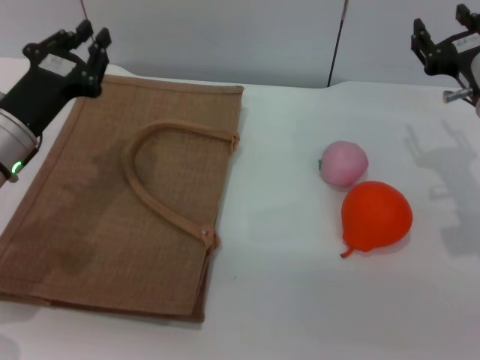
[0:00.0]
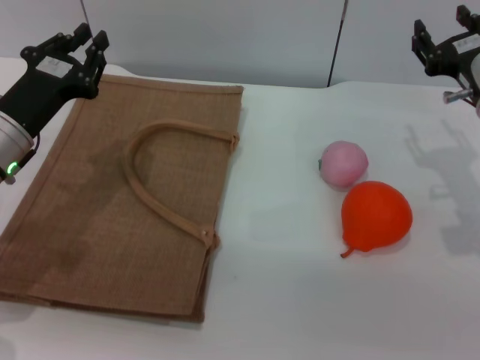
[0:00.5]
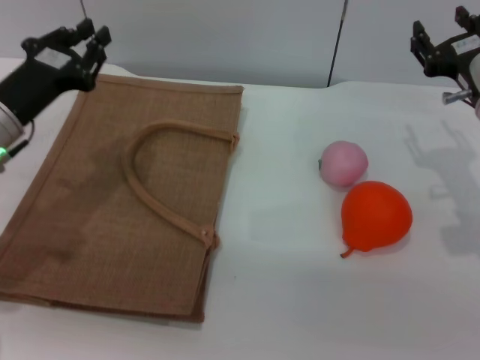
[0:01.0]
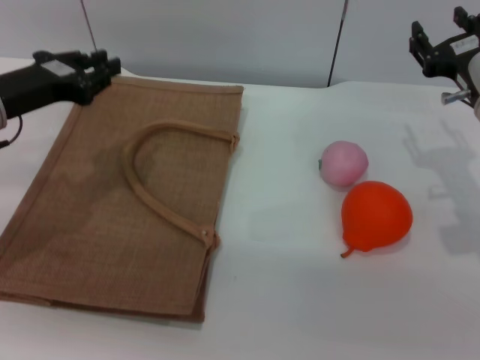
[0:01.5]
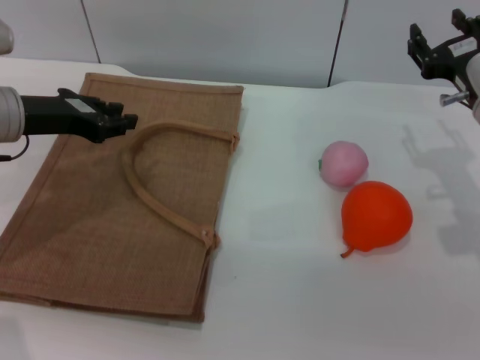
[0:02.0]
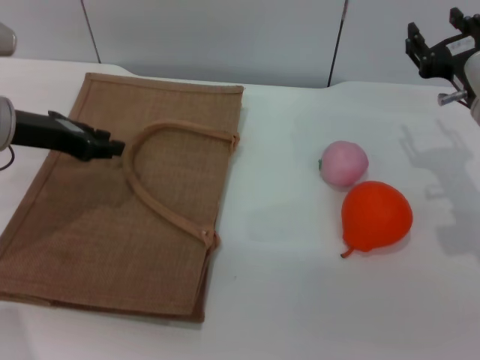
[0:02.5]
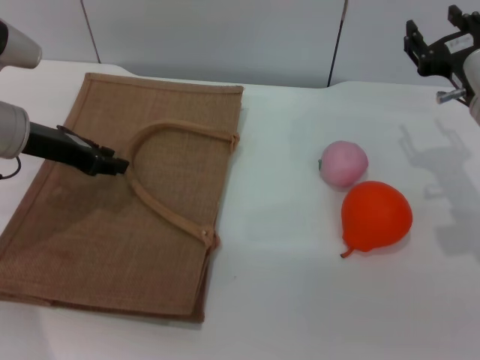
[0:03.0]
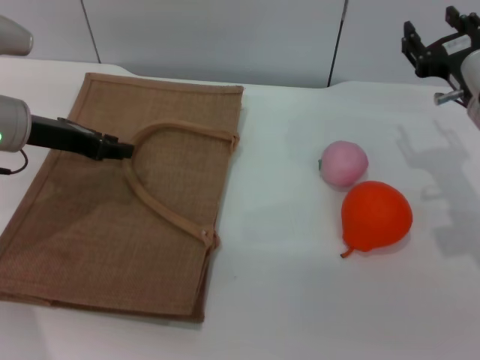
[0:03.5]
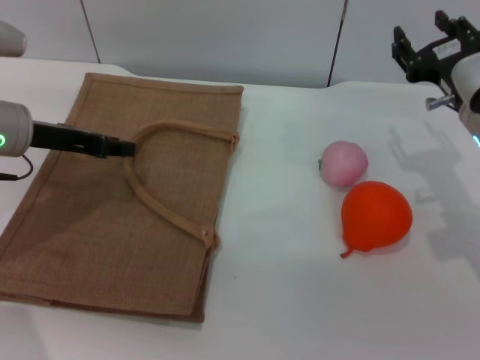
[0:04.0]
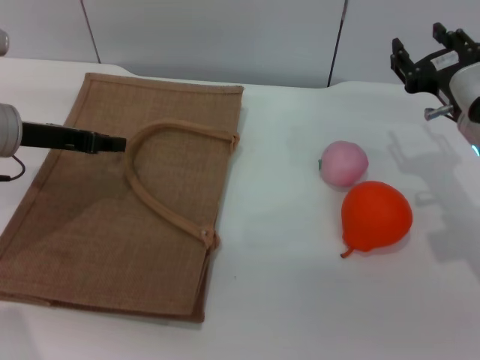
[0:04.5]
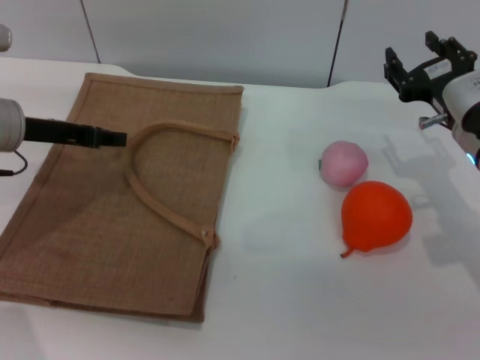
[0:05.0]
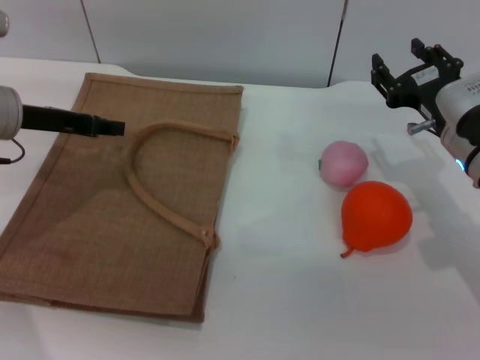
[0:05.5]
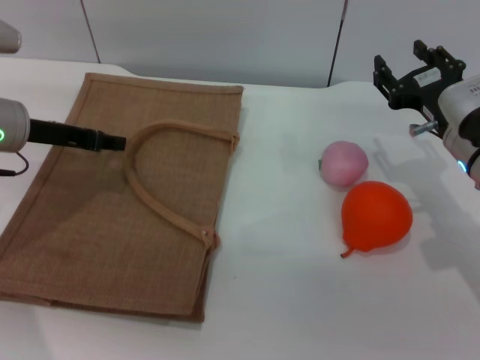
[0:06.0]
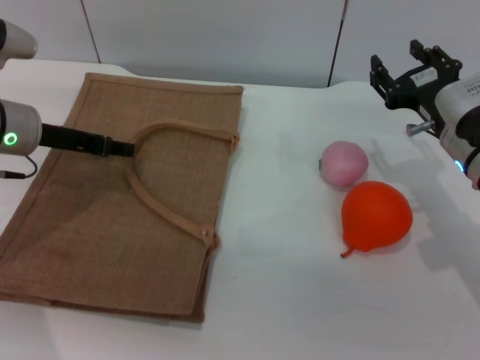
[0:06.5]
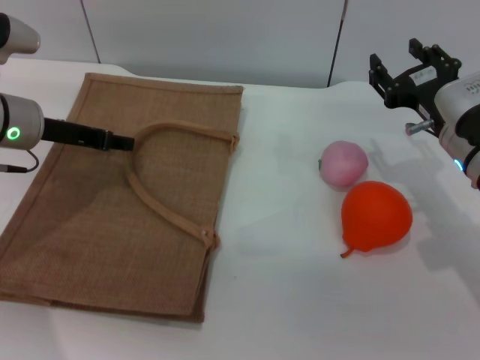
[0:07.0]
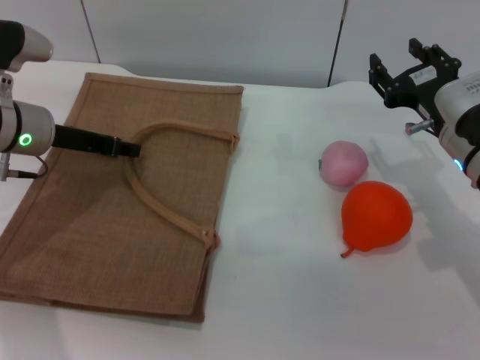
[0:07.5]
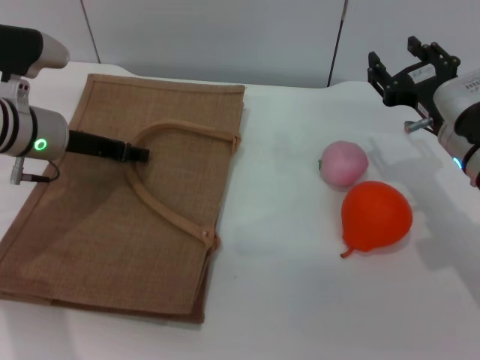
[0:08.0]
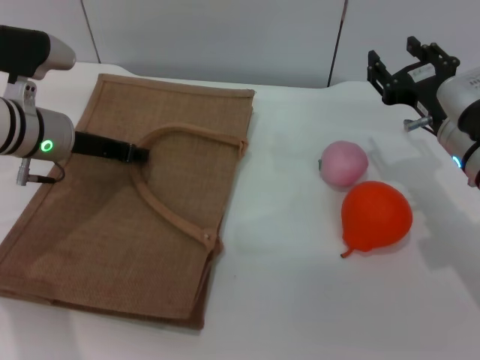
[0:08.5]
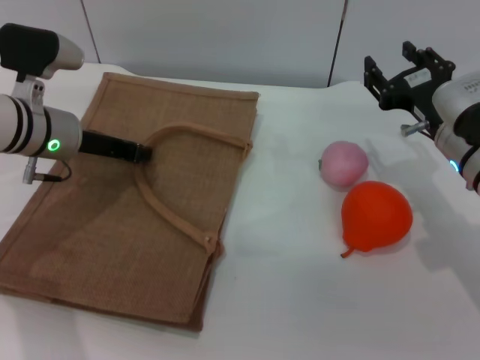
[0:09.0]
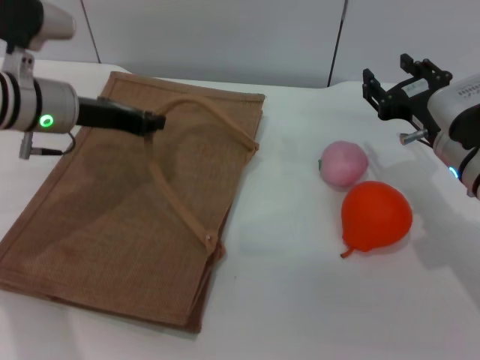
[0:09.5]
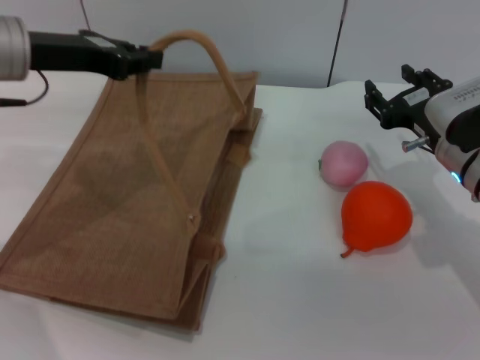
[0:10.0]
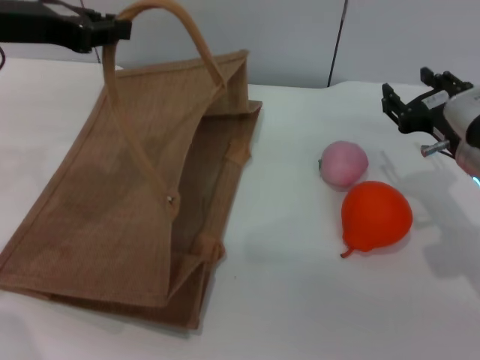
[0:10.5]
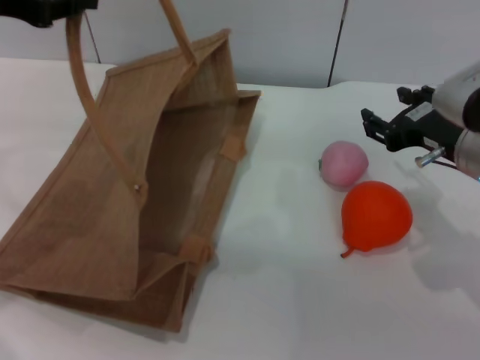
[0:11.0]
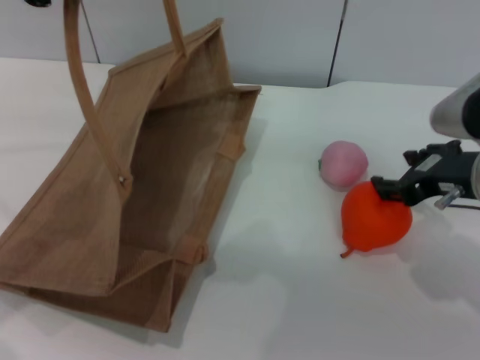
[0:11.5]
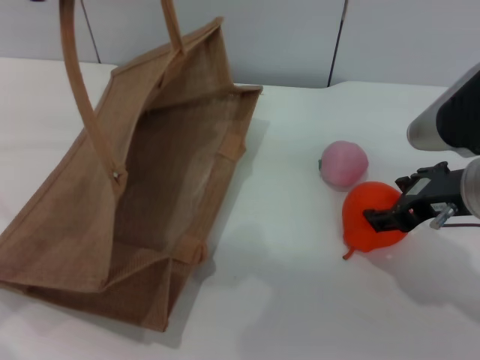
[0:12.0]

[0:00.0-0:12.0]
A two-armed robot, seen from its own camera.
Task of the whole recording: pick up the orange and peach from the table and place it in the brown handbag.
Step, 0:00.0 to 0:10.0: Lift the woven bag with the left gripper to open it.
0:00.0 to 0:02.0: The left gripper shifts some 5 cm upward.
0:04.0 to 0:08.0: There are only small adjustments of the grippers.
0:08.0 to 0:10.0: The left gripper shifts roughly 10 cm upward, and closes its fingers.
0:10.0 to 0:12.0: The two grippers go some 10 cm upward and backward.

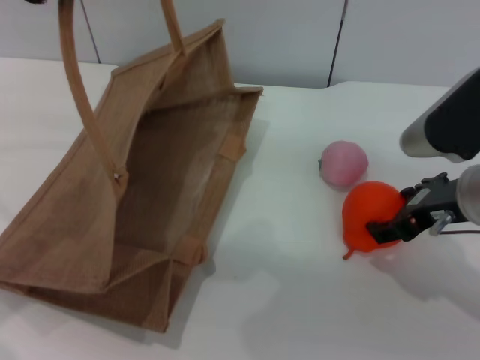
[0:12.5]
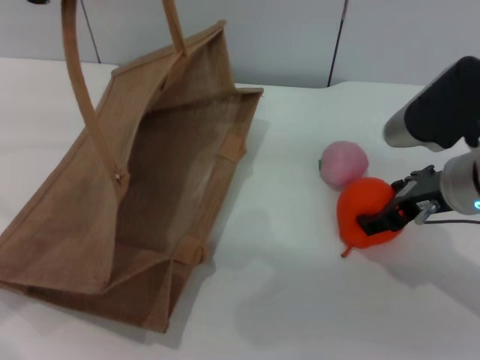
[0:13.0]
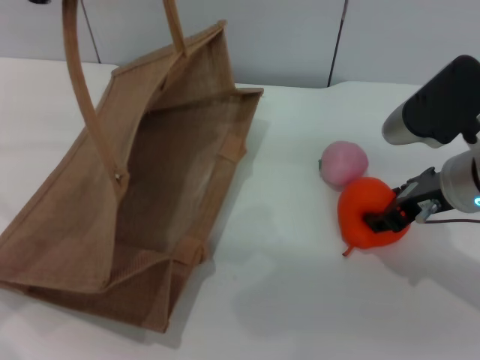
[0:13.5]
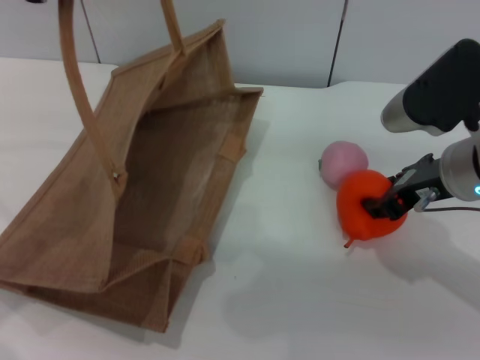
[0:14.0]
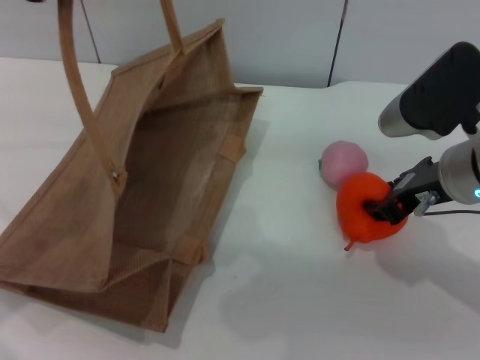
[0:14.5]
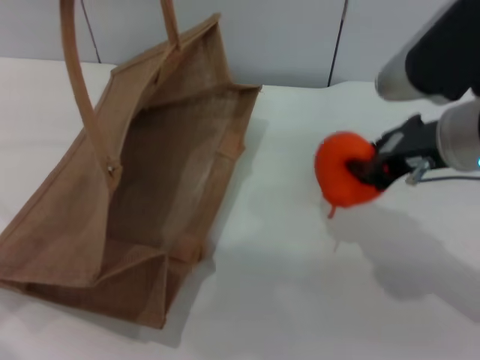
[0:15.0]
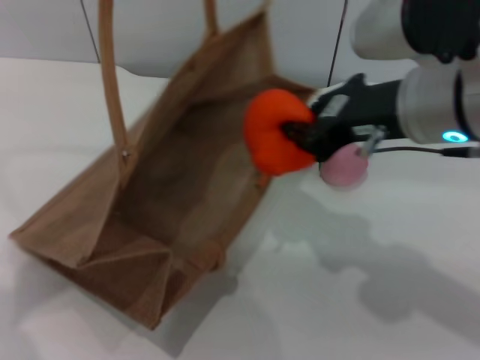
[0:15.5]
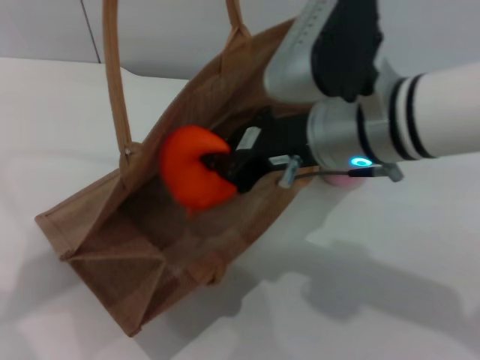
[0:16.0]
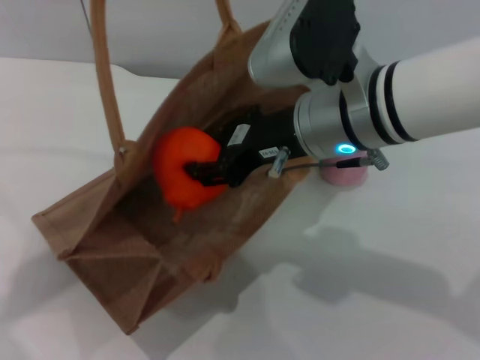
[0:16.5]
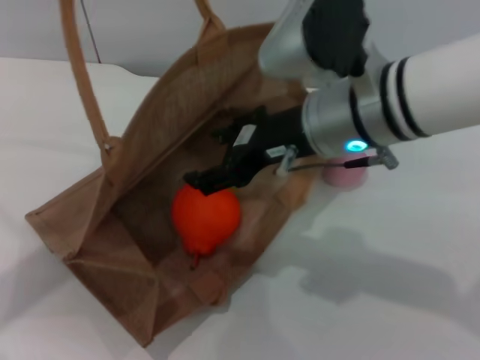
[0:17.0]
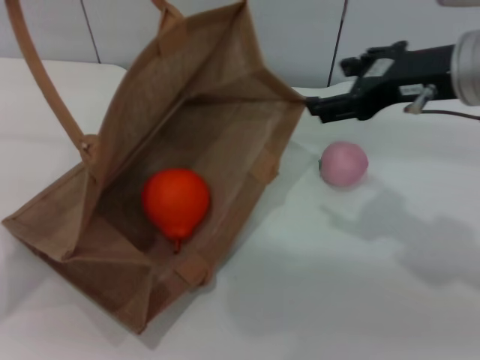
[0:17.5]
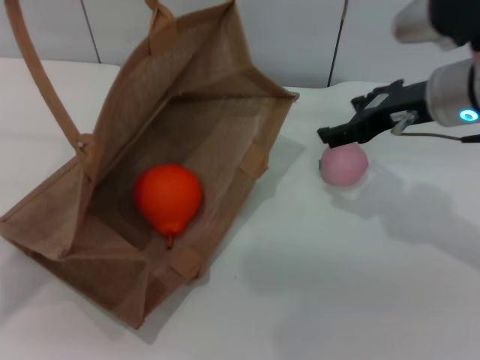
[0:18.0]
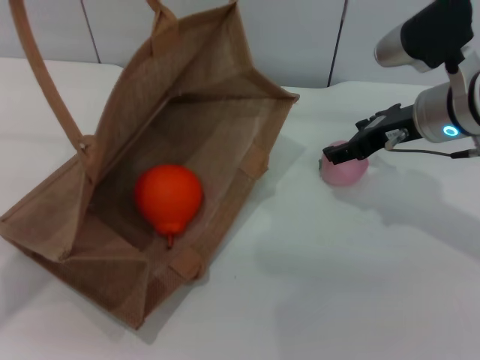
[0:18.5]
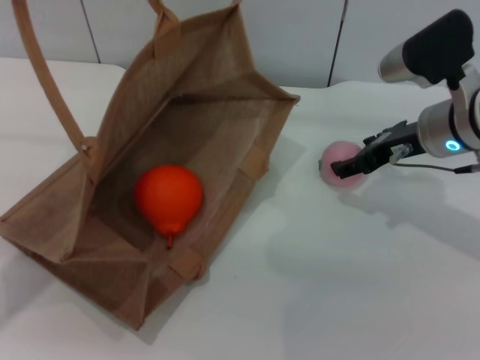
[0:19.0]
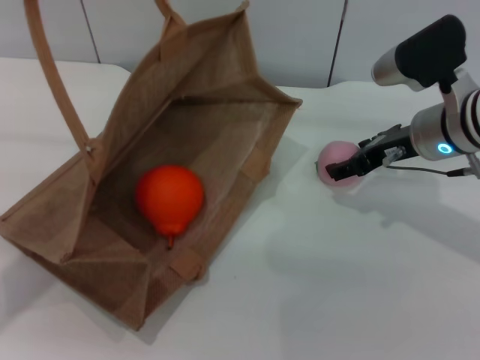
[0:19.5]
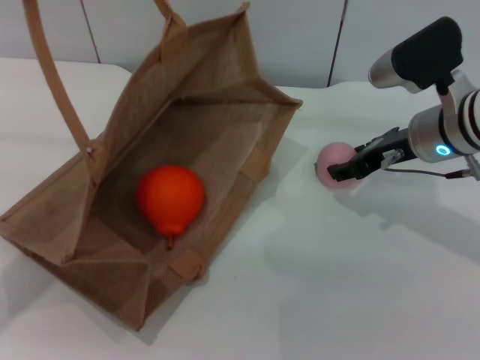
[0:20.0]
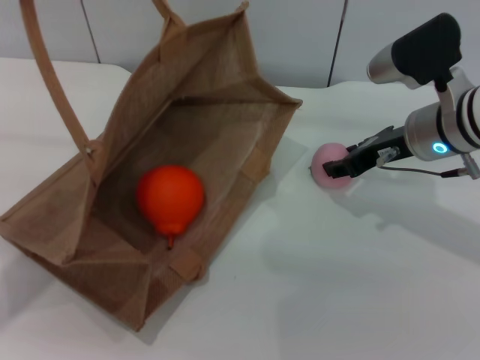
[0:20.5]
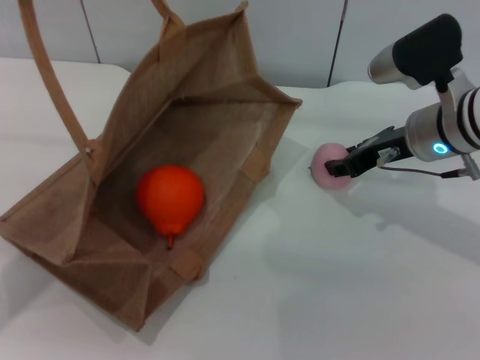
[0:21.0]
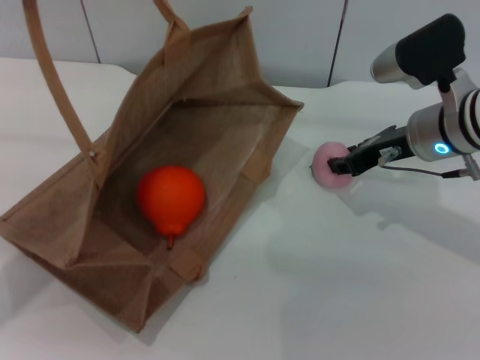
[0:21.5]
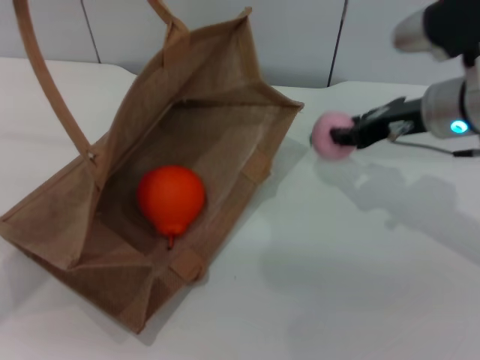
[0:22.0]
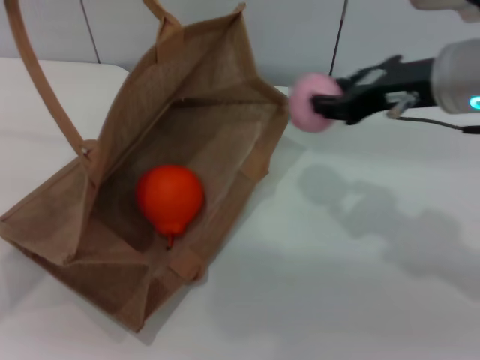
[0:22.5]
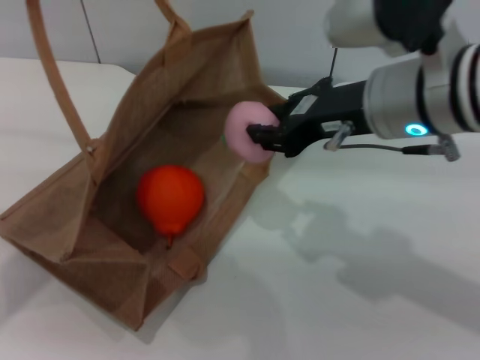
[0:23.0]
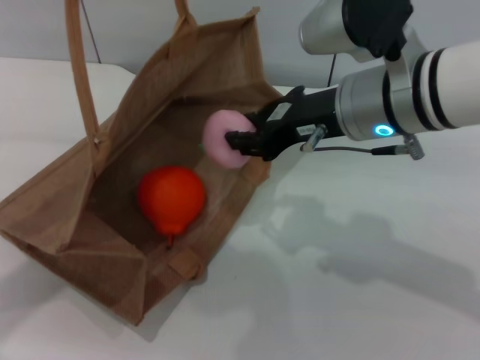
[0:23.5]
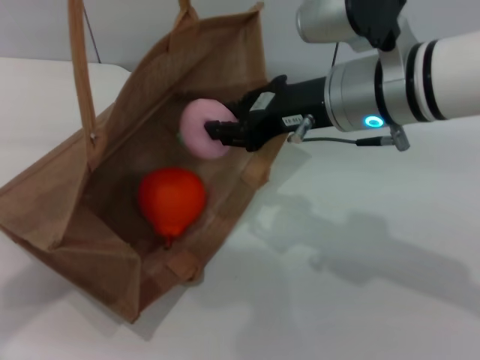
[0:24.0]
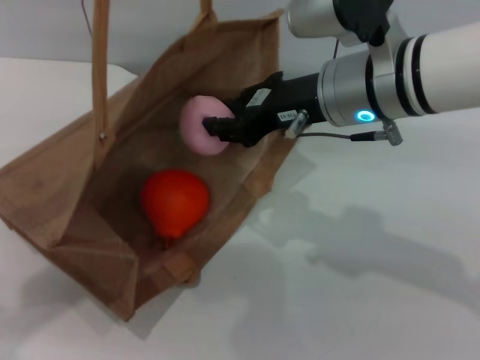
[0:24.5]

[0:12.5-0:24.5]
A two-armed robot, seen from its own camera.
Task of the whole recording: pick up the orange and peach from the table and place it in the brown handbag.
Step, 0:12.5 to 0:15.0: Pick up the orange with the right gripper.
Step, 0:15.5 to 0:17.0: Place the orange into the woven bag with the right gripper.
Step, 0:17.5 to 0:22.0: Pick up the peach with the right gripper.
0:12.5 to 0:14.5: The right gripper closes.
0:14.5 to 0:16.5: The right gripper moves to the left, about 10 cm.
0:16.5 to 0:18.5: The left gripper moves about 5 cm. The right gripper goes about 15 cm to the right, forward and downward, and opens its fingers.
0:18.5 to 0:20.5: The right gripper closes.
0:20.5 to 0:22.5: The right gripper shifts roughly 10 cm upward and backward.
0:22.5 to 0:24.5: The left gripper moves to the right, about 5 cm; the right gripper goes some 10 cm to the left.

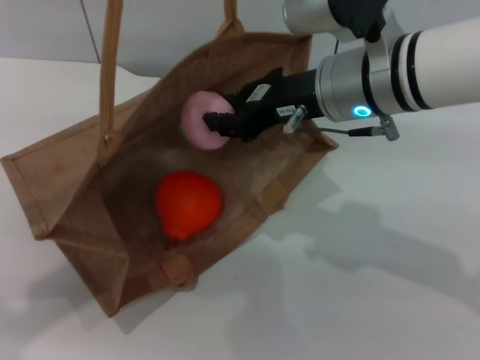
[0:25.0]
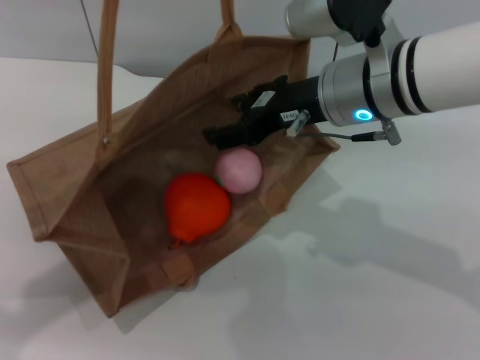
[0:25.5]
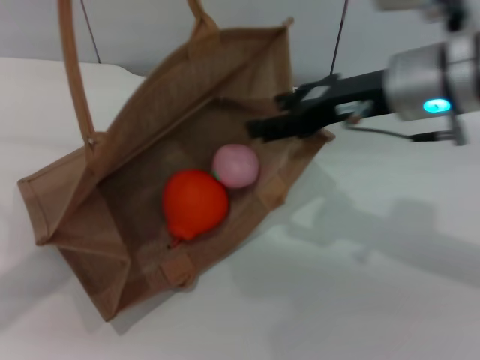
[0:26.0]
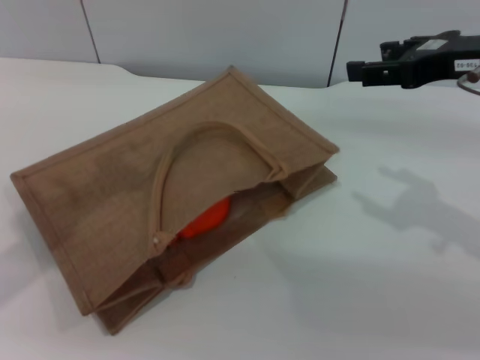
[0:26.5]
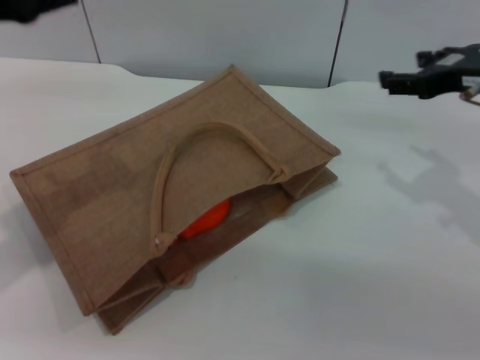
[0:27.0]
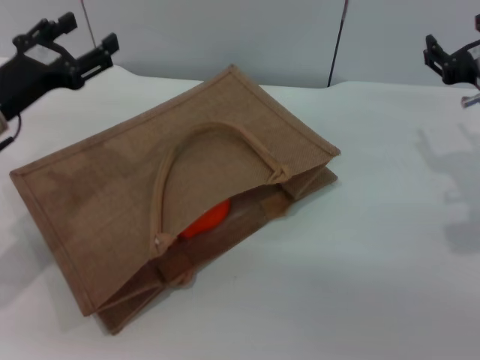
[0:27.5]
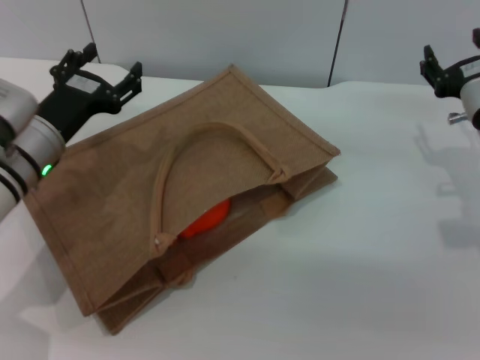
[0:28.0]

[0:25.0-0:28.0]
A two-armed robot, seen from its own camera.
Task of the whole recording: pick up the orange and peach from the table and place it in the brown handbag.
0:25.0 to 0:26.5: The right gripper goes some 15 cm to the right, and opens up. Meanwhile the left gripper shifts some 10 cm to the left and downward.
0:26.5 to 0:28.0: The grippers both shift downward by about 20 cm. The left gripper opens.
